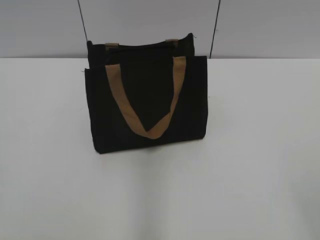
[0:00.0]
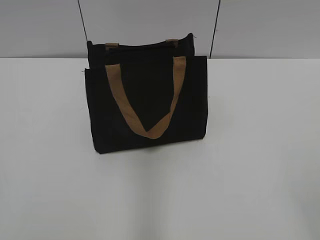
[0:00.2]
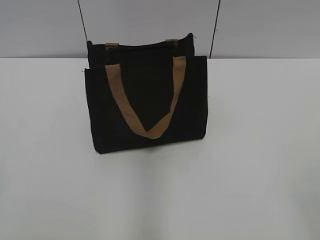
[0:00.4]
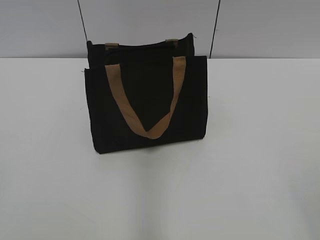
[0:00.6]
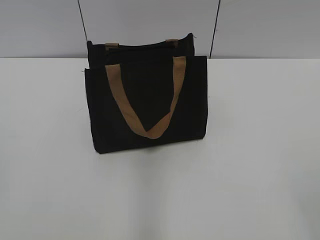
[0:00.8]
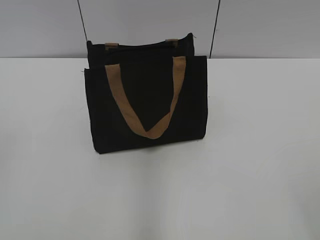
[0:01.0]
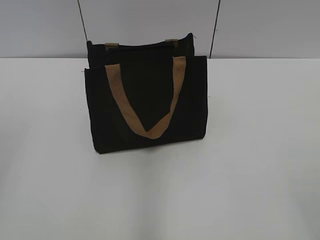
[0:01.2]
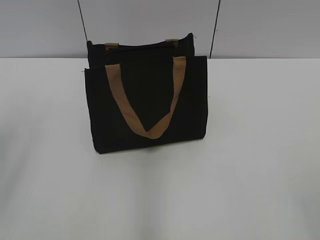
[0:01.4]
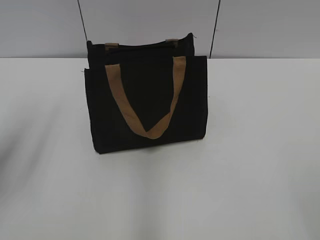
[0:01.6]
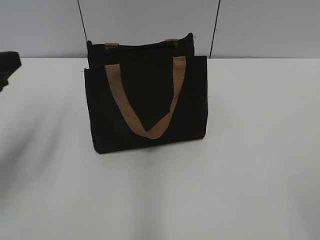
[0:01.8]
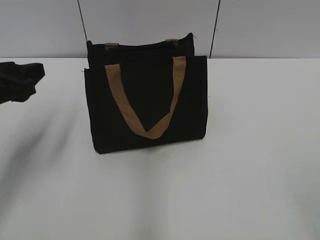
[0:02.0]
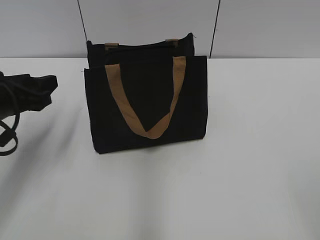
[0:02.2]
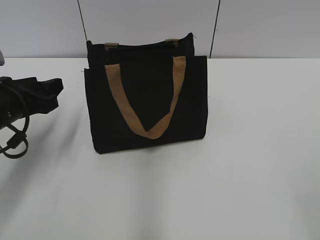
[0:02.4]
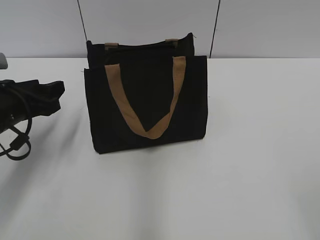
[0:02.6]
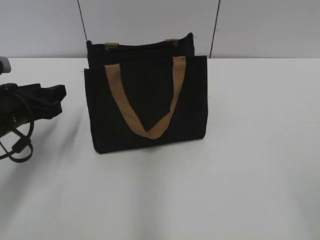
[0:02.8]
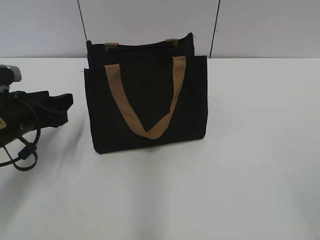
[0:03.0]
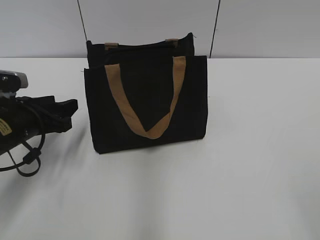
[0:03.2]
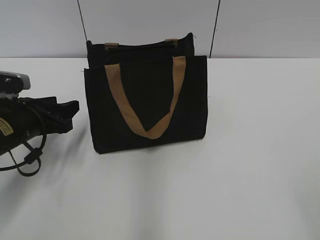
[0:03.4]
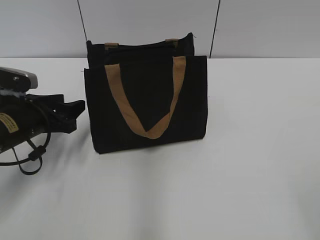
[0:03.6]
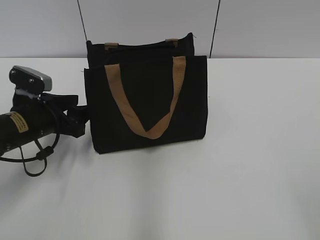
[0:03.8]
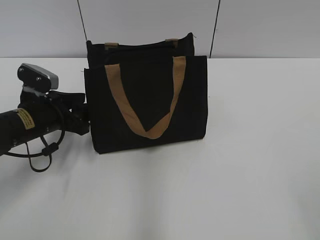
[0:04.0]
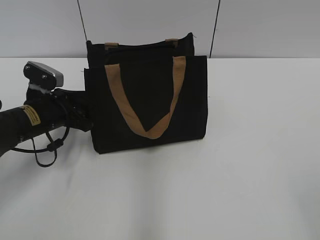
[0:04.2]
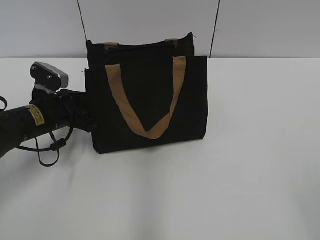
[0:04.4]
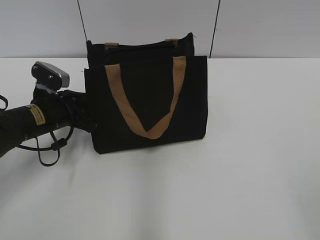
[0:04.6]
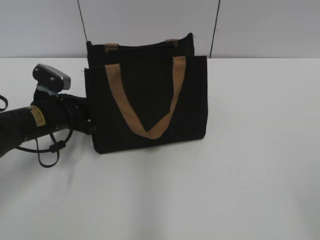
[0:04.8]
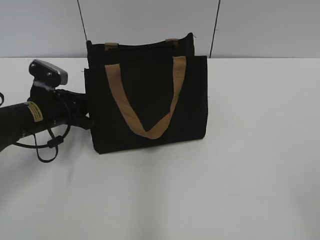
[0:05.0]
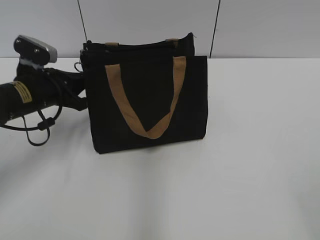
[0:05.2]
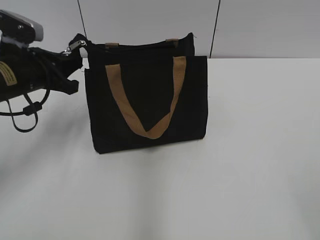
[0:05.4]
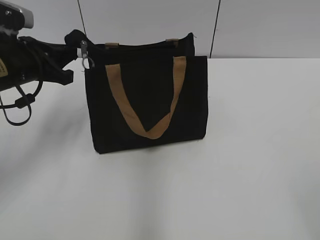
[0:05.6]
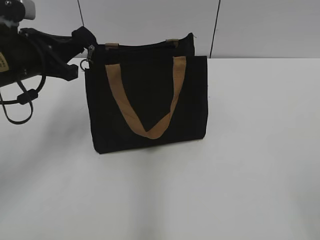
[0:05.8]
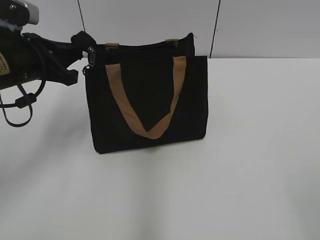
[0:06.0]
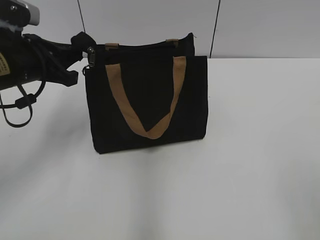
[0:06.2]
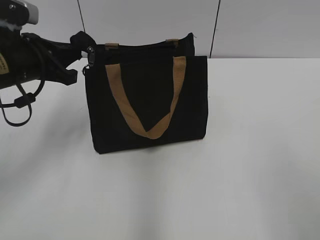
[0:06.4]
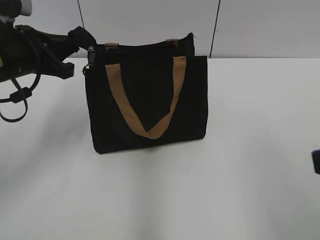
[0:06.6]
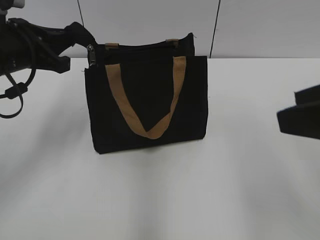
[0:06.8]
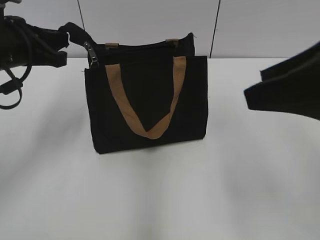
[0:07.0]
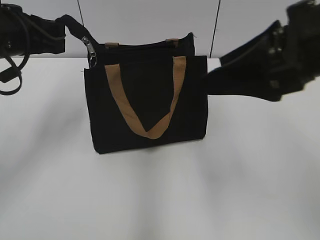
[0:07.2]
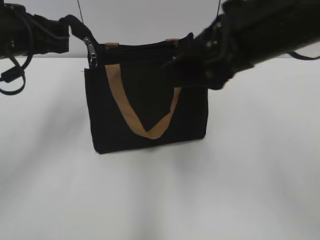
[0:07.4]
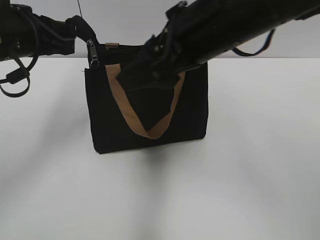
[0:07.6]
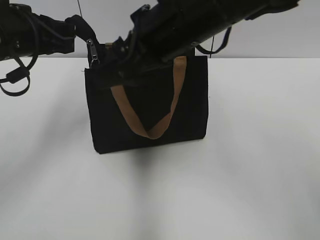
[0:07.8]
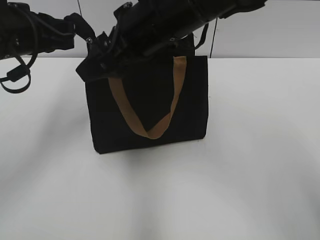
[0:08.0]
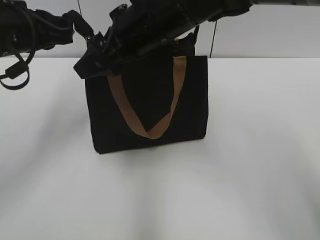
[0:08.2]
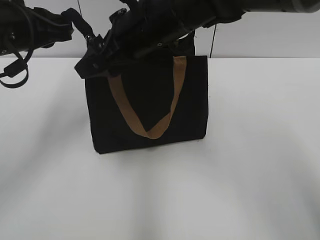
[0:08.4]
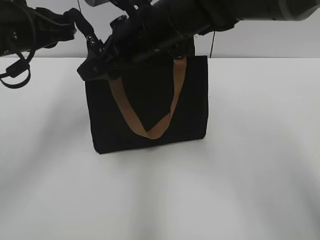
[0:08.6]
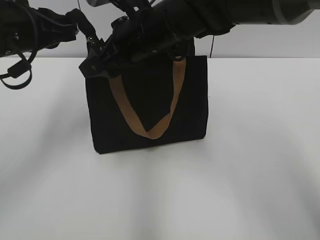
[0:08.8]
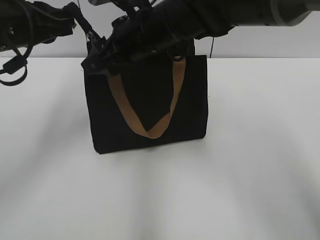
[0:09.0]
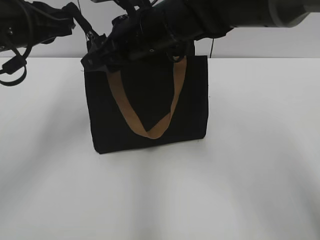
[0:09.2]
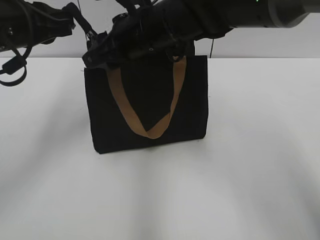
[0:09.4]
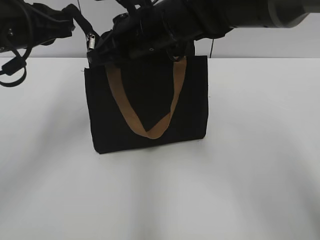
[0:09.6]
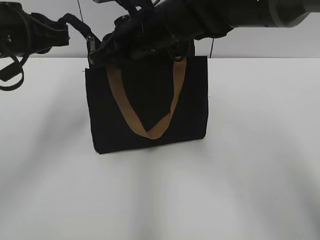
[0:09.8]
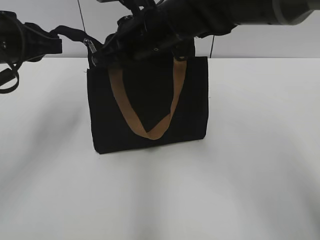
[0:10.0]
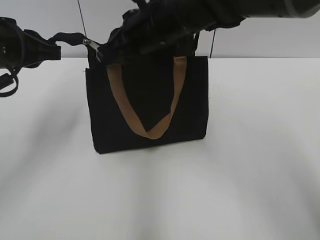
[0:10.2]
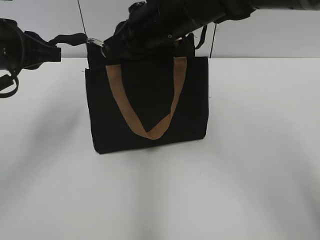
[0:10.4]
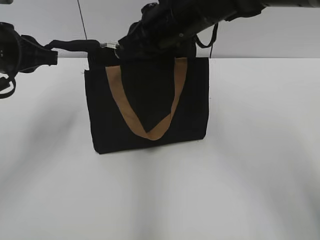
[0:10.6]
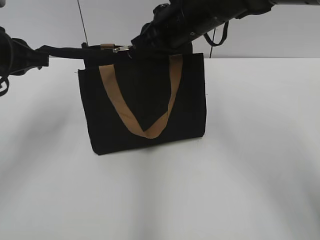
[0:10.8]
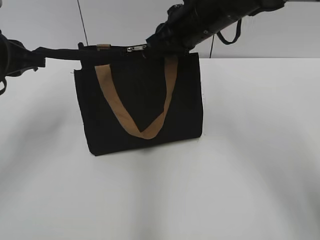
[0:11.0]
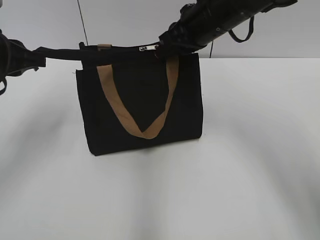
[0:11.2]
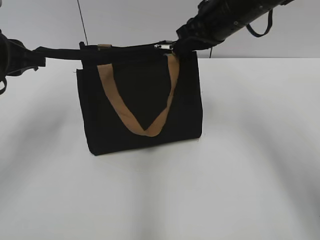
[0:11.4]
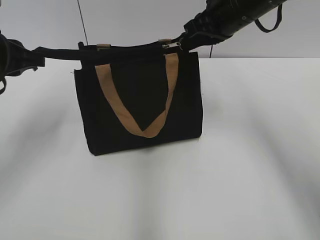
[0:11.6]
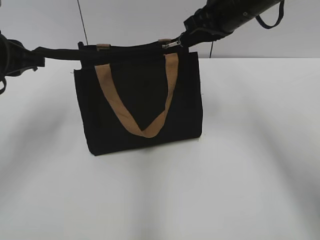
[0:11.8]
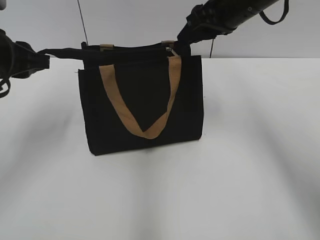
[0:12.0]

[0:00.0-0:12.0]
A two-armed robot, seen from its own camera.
Step, 0:00.0 to 0:11.8: Zip up the bag with your right hand.
0:01.6 to 0:03.0: The left gripper goes roughly 15 cm downward and forward.
0:03.0 to 0:04.4: The left gripper shifts roughly 5 cm forward.
0:04.4 to 0:06.0: The left gripper moves upward, approximately 10 cm, and closes.
0:06.0 to 0:07.6: The right gripper goes some 35 cm forward and to the left.
0:07.6 to 0:09.0: The right gripper moves forward, to the left and downward, approximately 15 cm.
0:09.0 to 0:10.4: The right gripper closes its fingers.
0:10.4 to 0:12.0: The right gripper goes some 10 cm to the right, and opens its fingers.

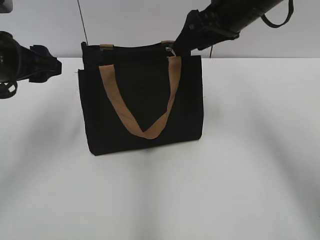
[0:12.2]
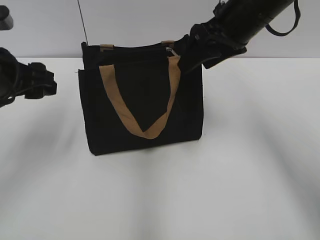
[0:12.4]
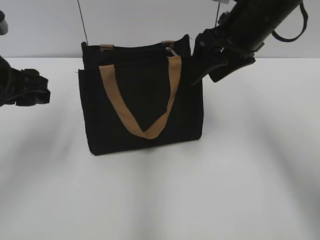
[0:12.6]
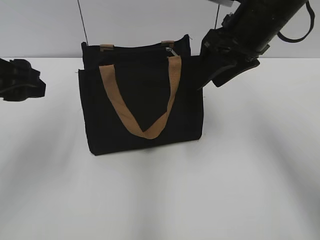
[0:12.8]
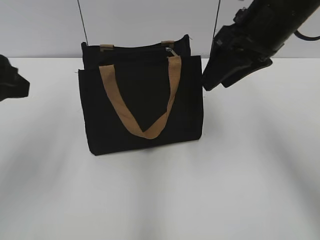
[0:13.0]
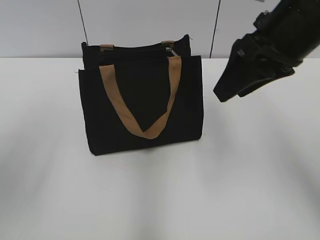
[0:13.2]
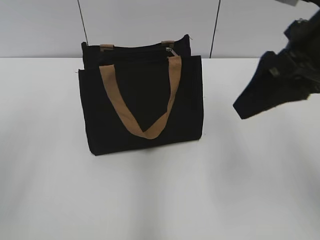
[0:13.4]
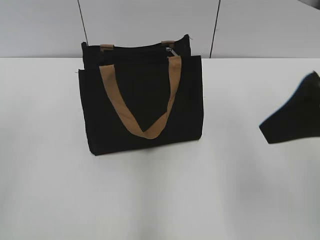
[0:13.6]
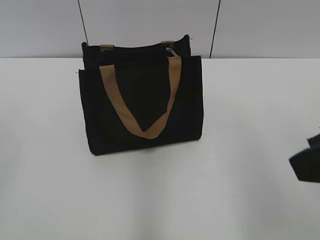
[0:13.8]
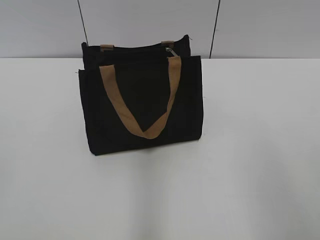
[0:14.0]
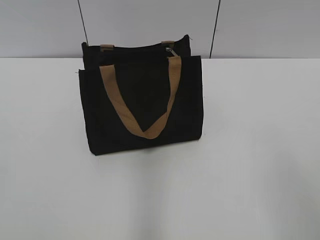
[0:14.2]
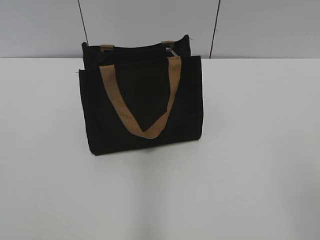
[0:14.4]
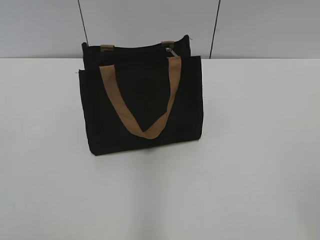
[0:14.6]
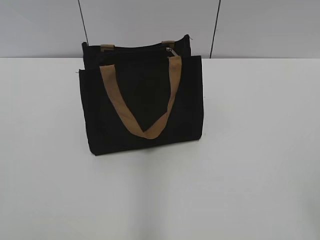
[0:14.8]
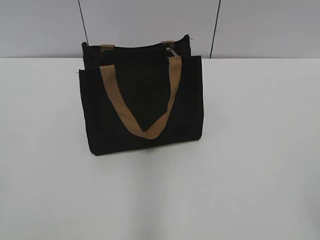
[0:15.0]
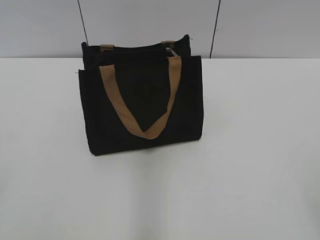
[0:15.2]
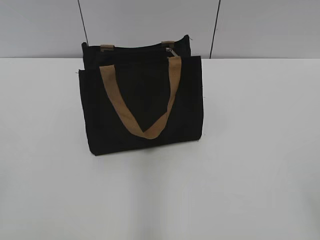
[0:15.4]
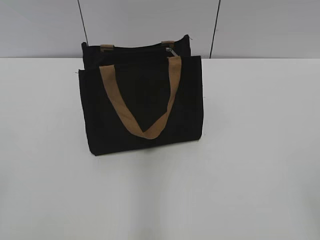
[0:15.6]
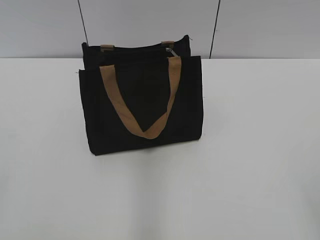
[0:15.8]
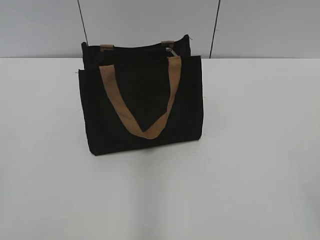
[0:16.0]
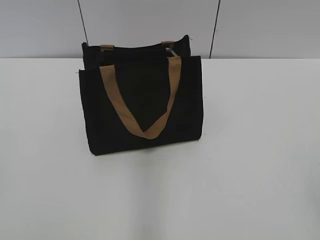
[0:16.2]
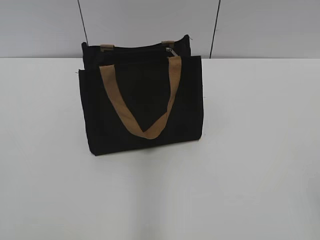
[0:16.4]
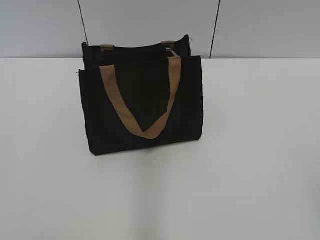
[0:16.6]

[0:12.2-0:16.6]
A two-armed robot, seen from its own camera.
0:12.2 to 0:13.6: The left gripper goes about 20 cm backward and upward. Meanwhile the right gripper goes some 20 cm backward.
0:13.6 to 0:15.2: The right gripper heads backward and to the right, covering roughly 20 cm.

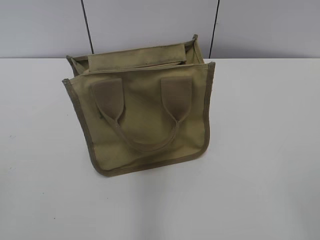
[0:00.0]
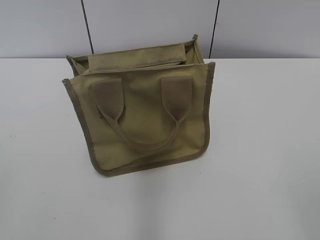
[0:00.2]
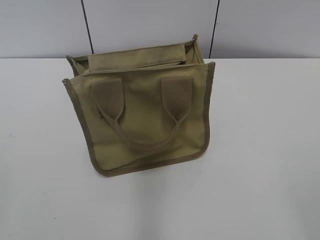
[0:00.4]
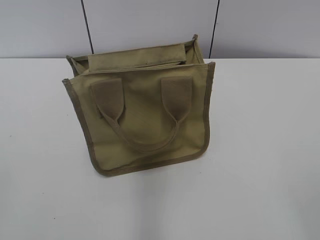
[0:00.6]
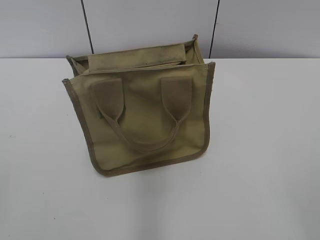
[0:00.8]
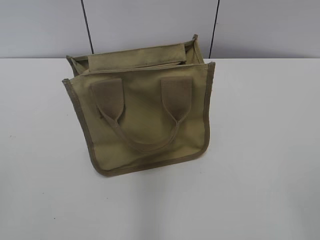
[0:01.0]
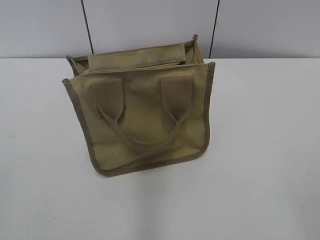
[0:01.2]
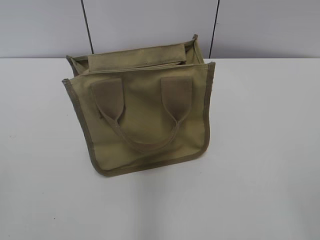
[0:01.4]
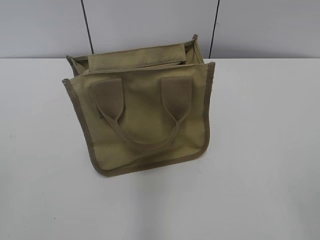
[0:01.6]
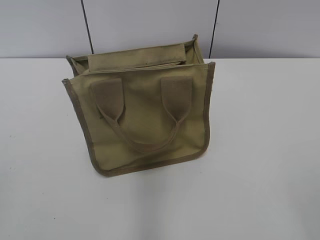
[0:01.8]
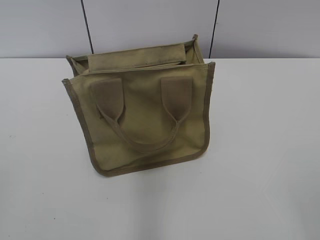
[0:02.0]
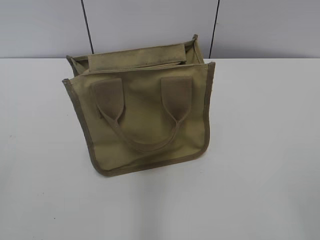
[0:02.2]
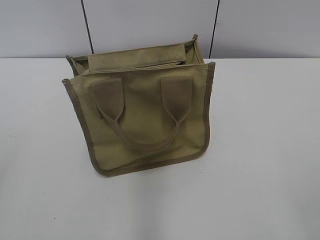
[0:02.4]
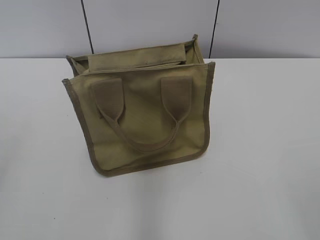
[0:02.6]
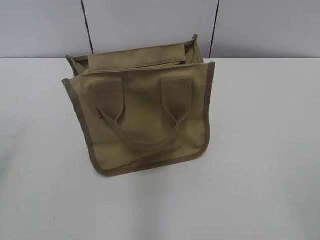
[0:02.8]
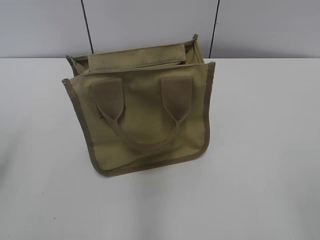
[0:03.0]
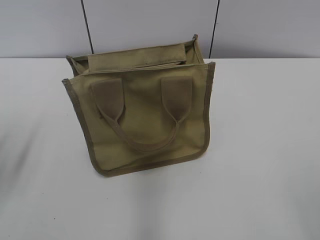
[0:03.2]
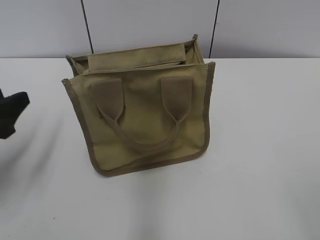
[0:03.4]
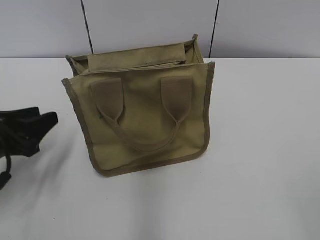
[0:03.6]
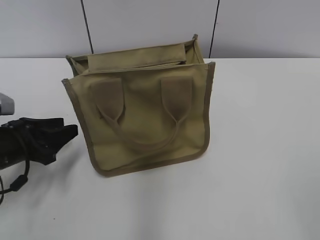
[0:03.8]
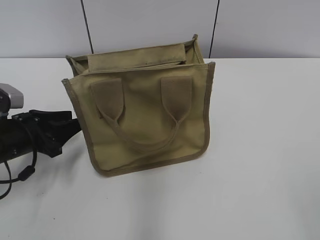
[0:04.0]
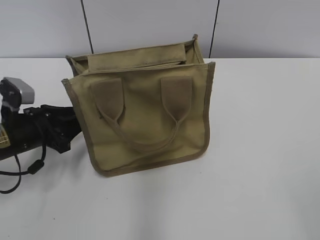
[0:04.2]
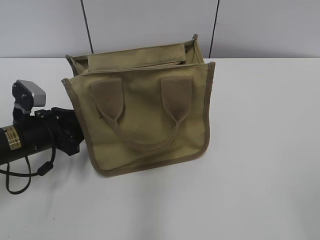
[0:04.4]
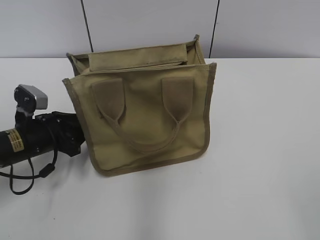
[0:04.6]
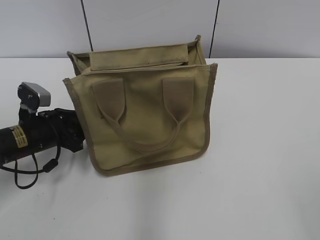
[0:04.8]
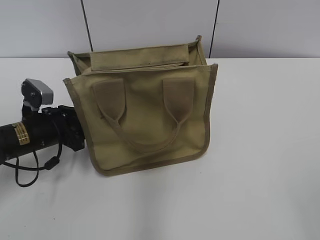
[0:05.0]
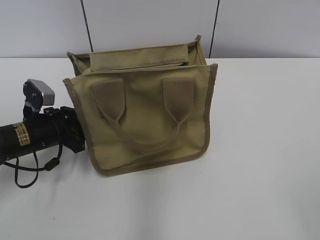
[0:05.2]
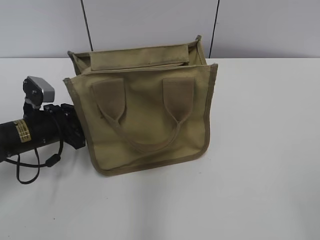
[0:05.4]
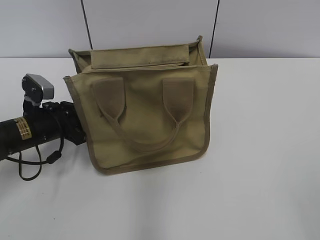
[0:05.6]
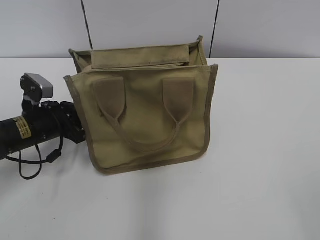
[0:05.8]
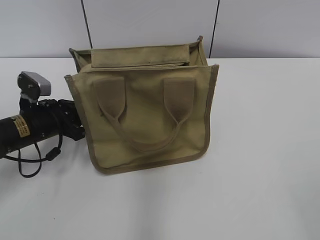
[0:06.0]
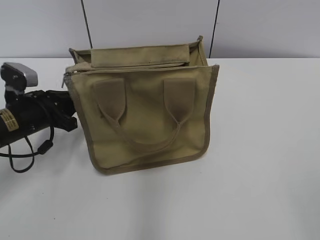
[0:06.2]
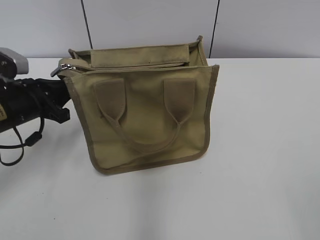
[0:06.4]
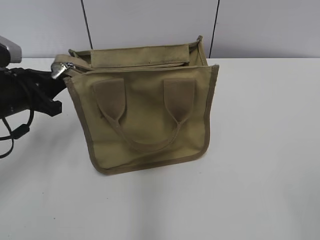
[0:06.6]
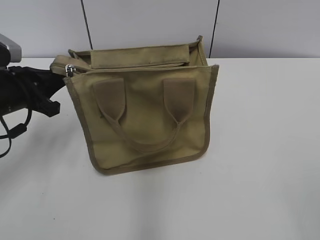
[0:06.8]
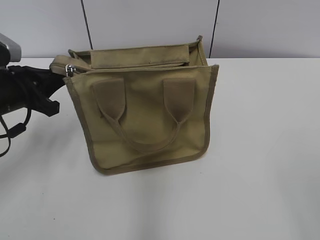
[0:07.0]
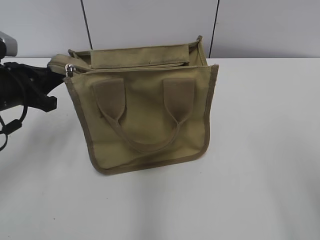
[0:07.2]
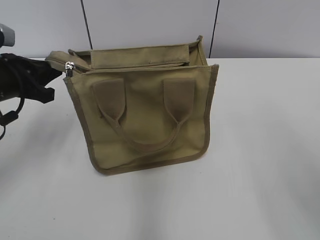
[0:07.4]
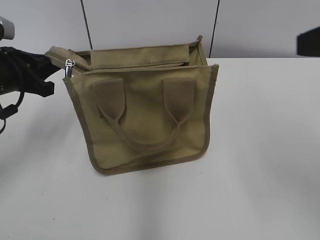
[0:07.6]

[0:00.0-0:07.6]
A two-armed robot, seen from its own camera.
0:03.0 to 0:04.6: The left gripper travels downward, forward and to the right by approximately 20 cm.
0:04.6 to 0:06.0: The left gripper closes up.
0:06.0 to 0:07.6: The right gripper shifts some 20 cm forward and upward. The left gripper moves upward, roughly 10 cm.
